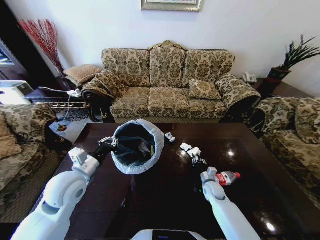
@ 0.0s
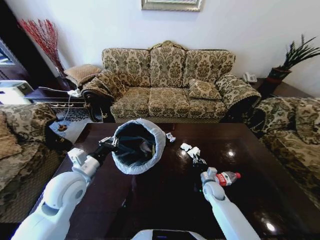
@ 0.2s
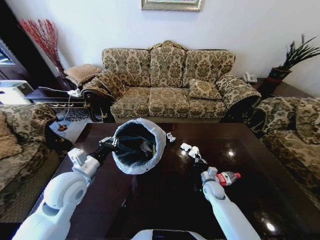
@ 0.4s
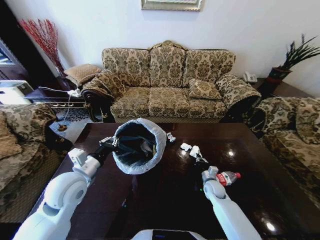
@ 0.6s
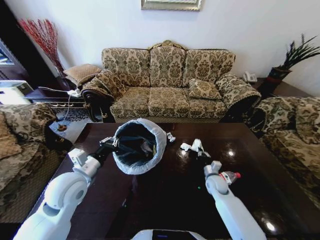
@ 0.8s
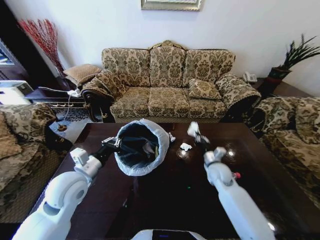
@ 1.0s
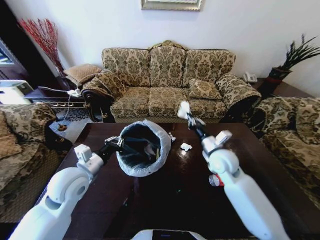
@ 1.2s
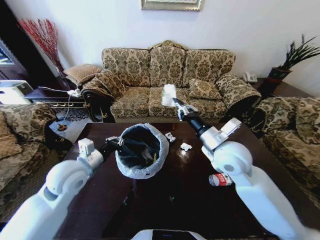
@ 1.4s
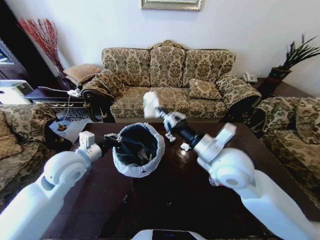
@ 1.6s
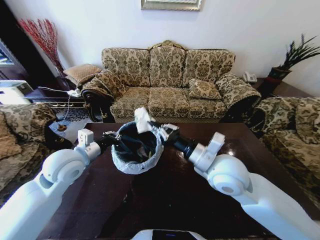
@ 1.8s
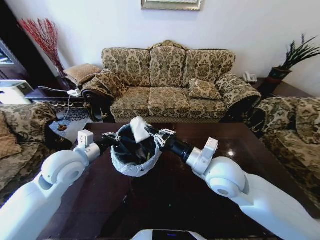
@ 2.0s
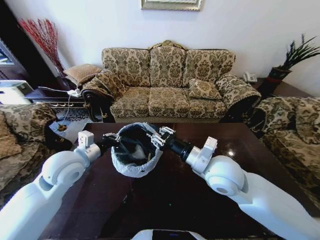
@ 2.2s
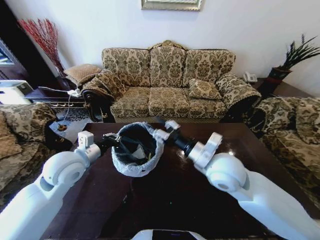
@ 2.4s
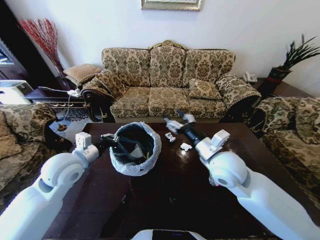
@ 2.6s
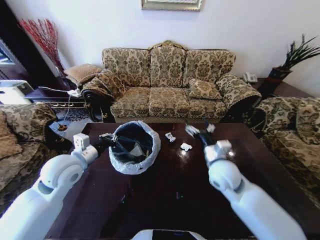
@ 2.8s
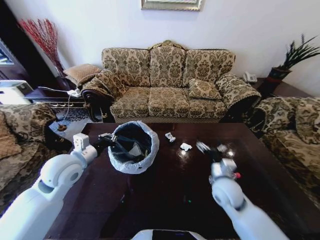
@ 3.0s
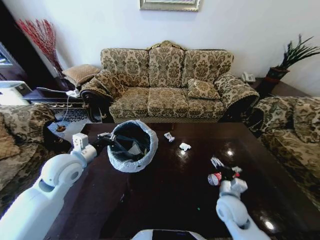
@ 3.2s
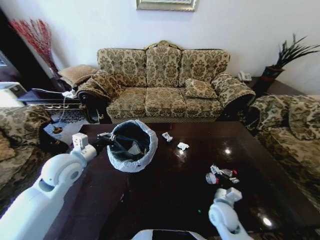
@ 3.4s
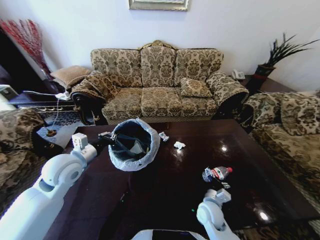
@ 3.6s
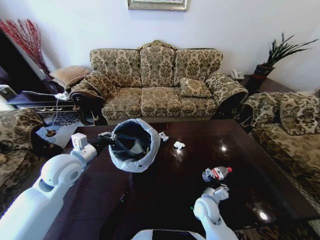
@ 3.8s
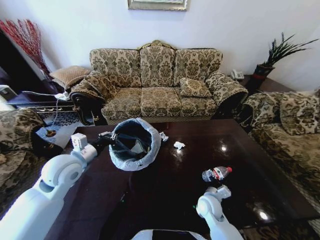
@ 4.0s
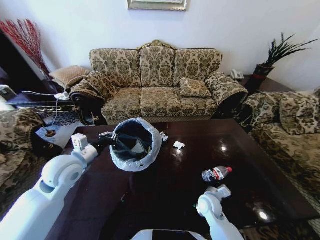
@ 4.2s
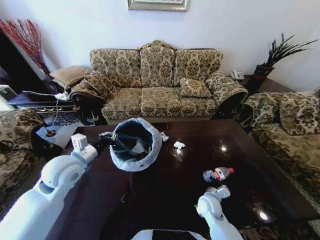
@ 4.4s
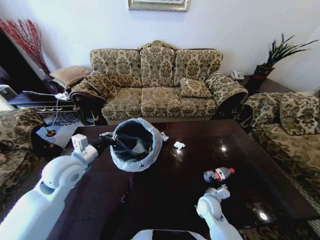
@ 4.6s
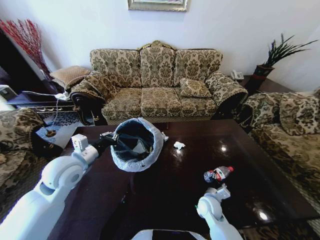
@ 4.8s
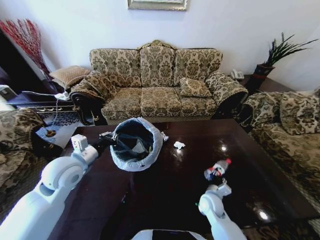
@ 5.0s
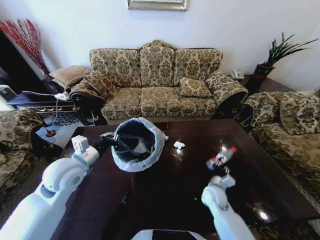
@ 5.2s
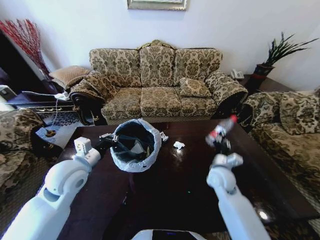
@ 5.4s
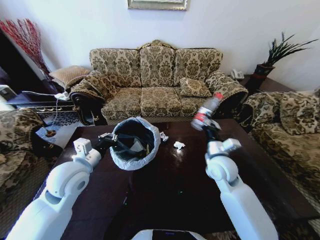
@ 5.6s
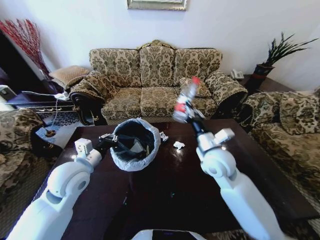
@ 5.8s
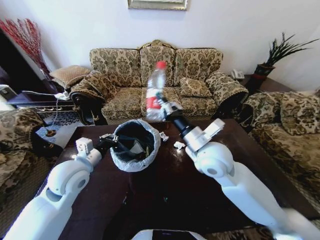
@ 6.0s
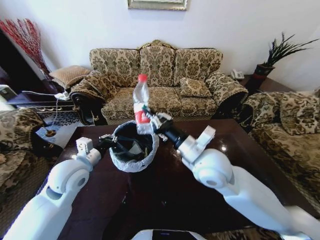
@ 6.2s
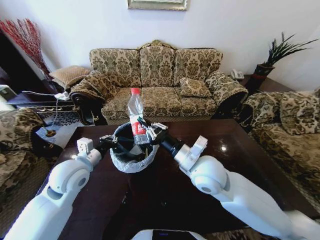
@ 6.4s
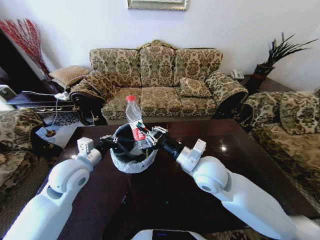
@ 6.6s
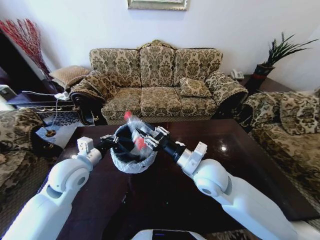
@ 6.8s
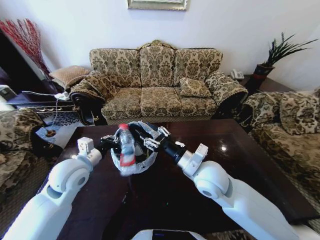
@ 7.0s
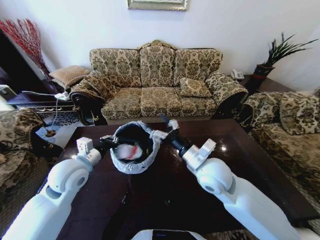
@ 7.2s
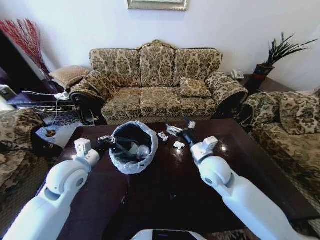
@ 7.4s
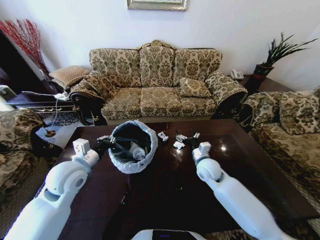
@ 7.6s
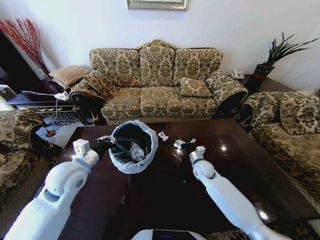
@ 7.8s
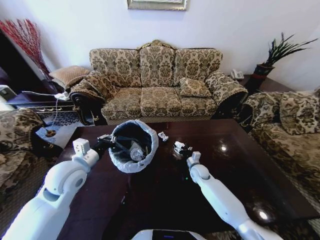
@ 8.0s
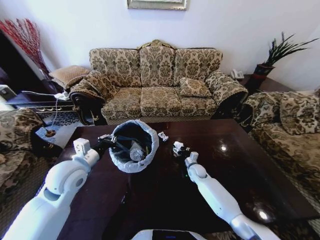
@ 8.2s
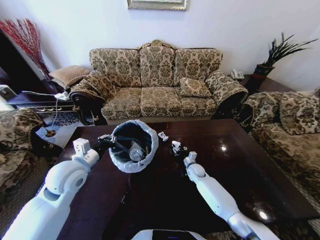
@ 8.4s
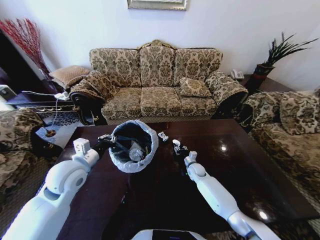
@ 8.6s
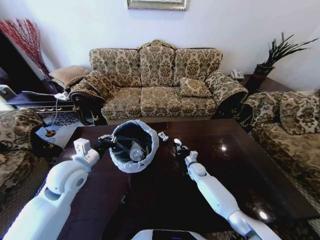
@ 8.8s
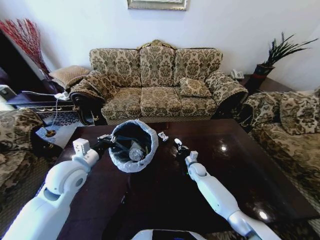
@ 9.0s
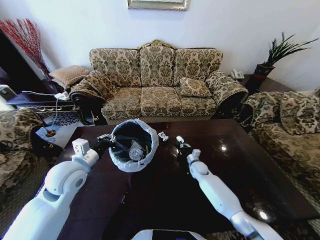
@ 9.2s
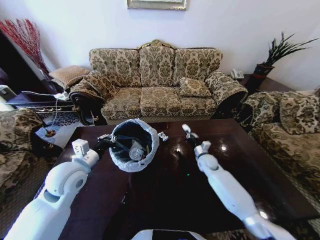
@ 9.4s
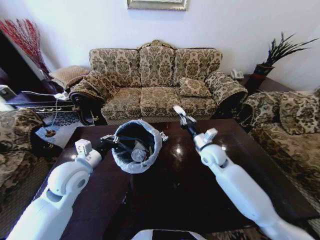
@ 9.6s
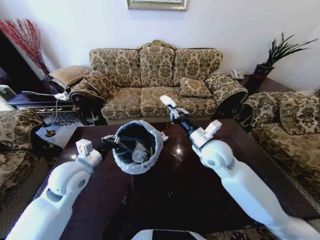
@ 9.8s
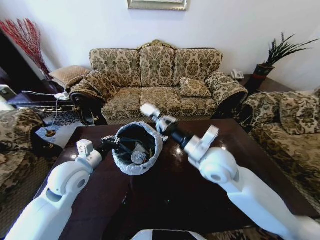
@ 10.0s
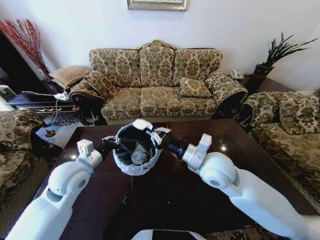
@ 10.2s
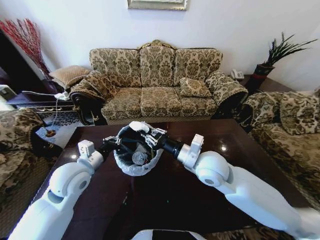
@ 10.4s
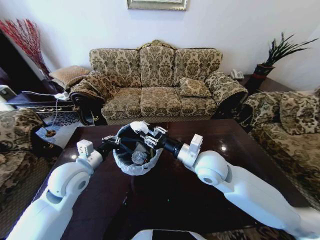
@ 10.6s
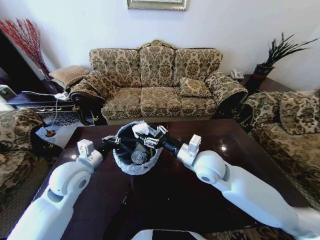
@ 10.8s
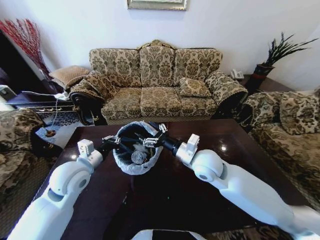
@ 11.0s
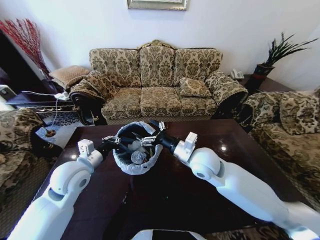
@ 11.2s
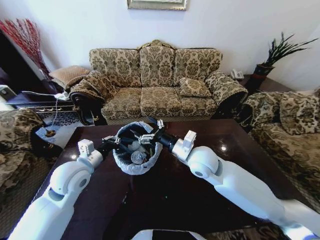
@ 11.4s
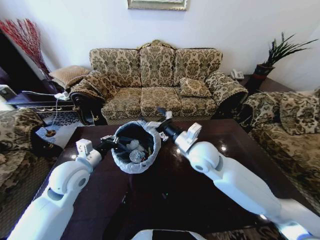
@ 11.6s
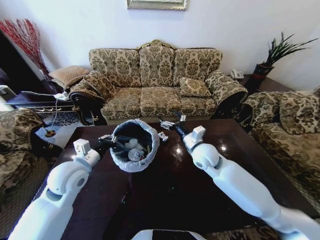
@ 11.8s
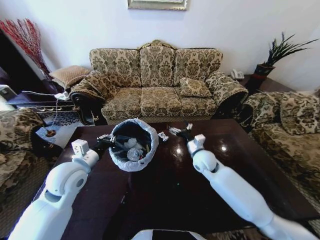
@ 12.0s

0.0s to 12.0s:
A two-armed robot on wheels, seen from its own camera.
Task of the whole recording: Move to the front of the table and place the trash on the table into the trash bin.
0.0s to 1.6s: The right gripper heads upward, covering roughly 35 cm, and closes its fingers, while the left gripper shifts by some 5 cm.
1.6s to 3.0s: The right gripper goes roughly 20 cm downward, and opens.
3.0s to 4.4s: The right gripper travels downward by about 15 cm.
4.4s to 6.0s: The right gripper heads upward, covering some 30 cm, and closes.
6.0s to 7.6s: The right gripper goes approximately 15 cm downward, and opens.
7.6s to 9.0s: The right gripper is displaced downward and forward by about 20 cm, and closes up.
9.0s to 10.4s: The right gripper moves upward and backward, roughly 35 cm.
10.4s to 12.0s: The right gripper goes about 15 cm downward and forward, and opens its fingers.

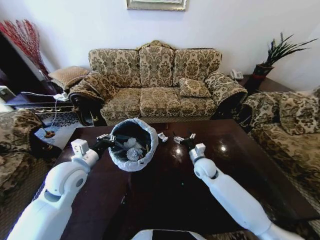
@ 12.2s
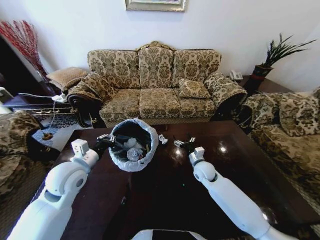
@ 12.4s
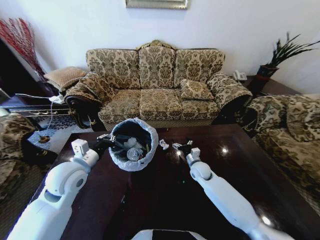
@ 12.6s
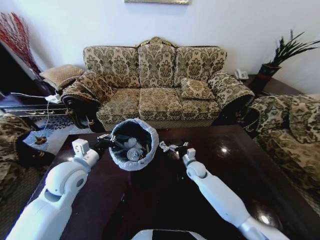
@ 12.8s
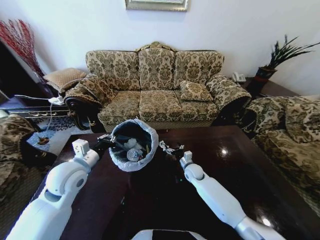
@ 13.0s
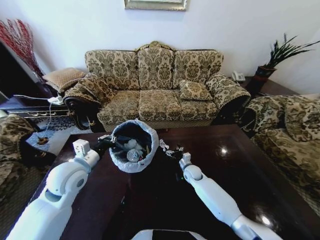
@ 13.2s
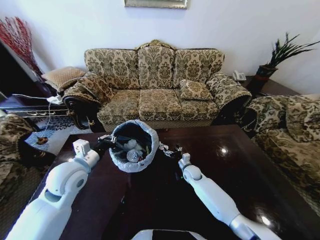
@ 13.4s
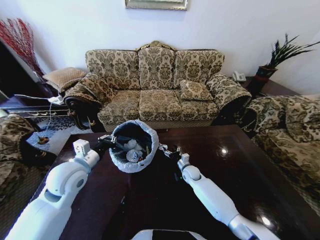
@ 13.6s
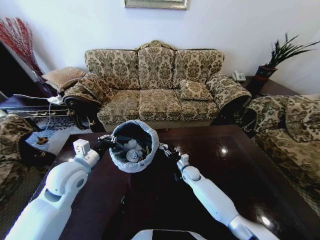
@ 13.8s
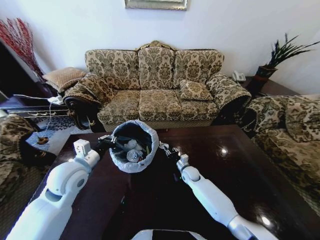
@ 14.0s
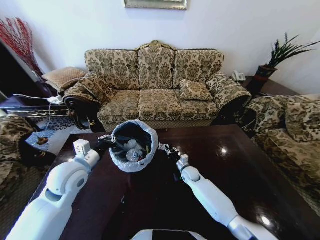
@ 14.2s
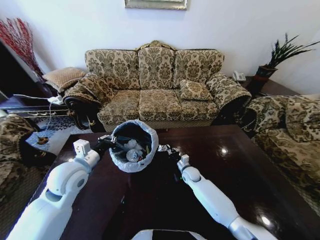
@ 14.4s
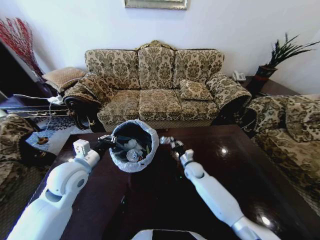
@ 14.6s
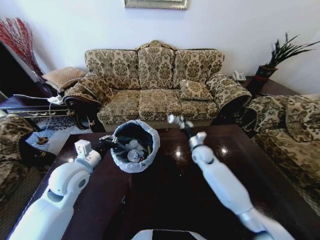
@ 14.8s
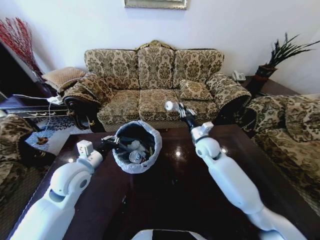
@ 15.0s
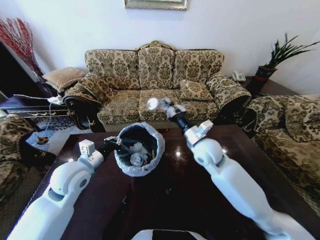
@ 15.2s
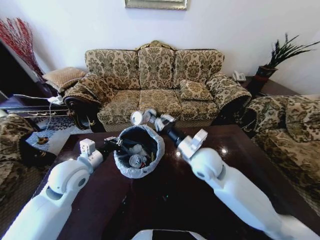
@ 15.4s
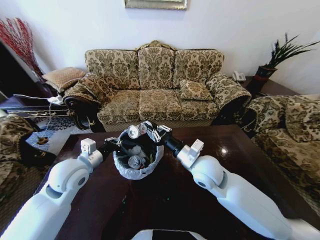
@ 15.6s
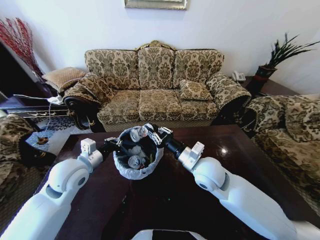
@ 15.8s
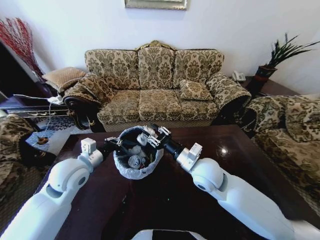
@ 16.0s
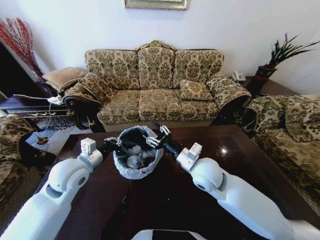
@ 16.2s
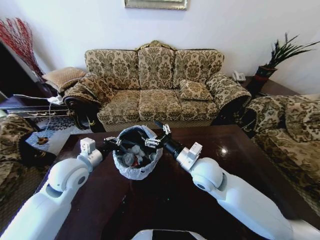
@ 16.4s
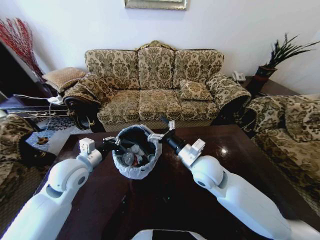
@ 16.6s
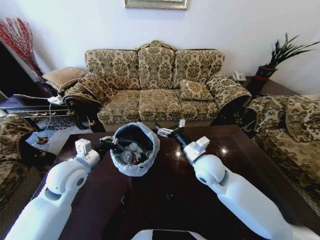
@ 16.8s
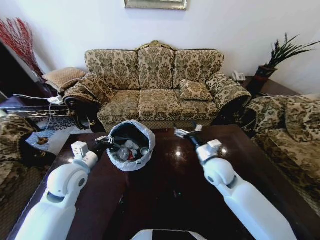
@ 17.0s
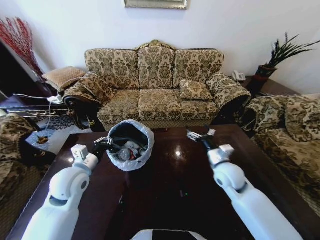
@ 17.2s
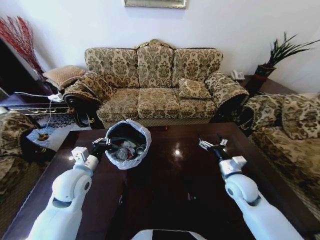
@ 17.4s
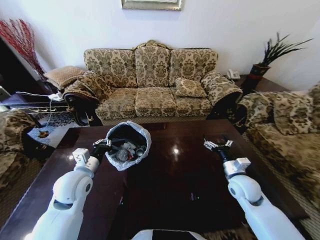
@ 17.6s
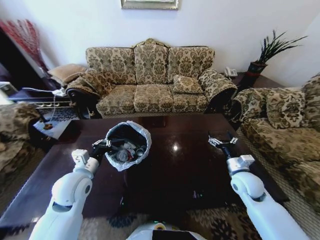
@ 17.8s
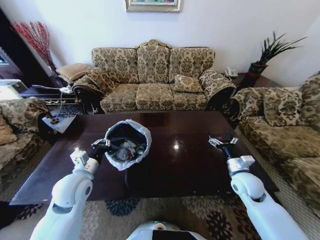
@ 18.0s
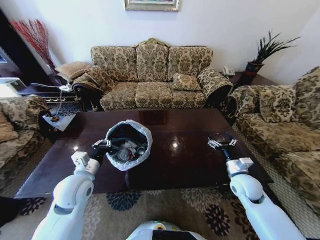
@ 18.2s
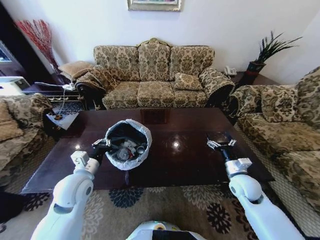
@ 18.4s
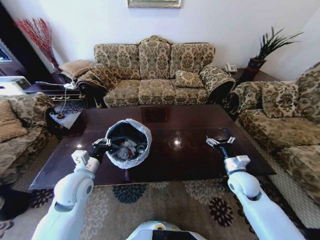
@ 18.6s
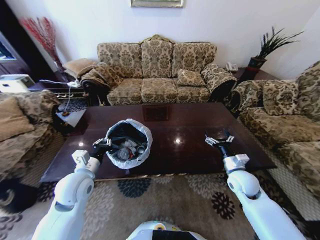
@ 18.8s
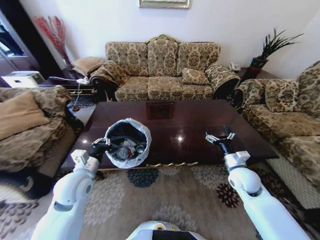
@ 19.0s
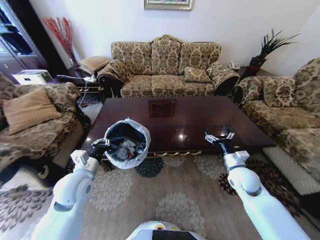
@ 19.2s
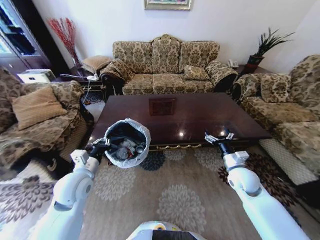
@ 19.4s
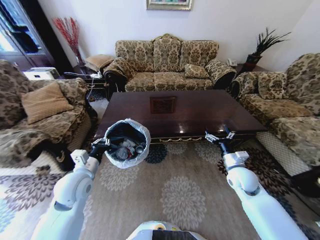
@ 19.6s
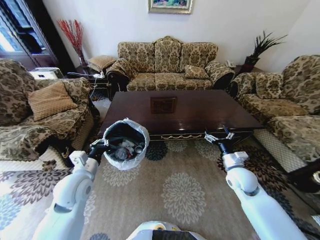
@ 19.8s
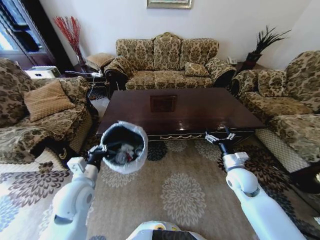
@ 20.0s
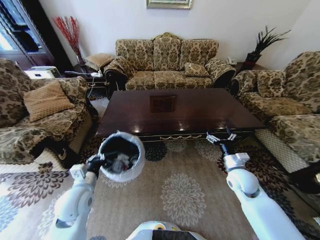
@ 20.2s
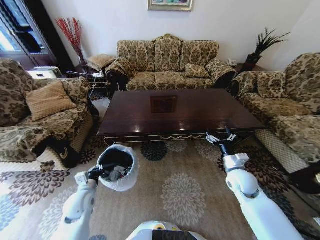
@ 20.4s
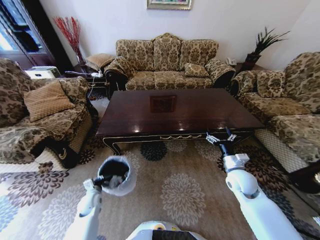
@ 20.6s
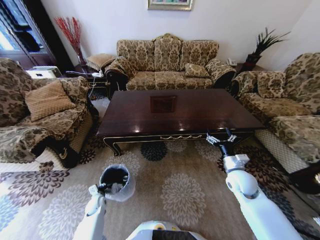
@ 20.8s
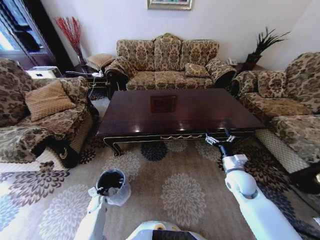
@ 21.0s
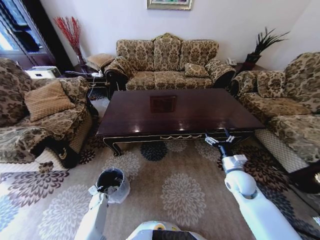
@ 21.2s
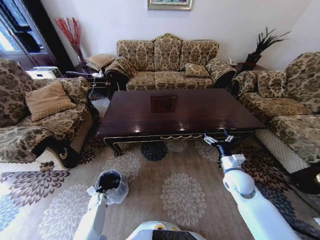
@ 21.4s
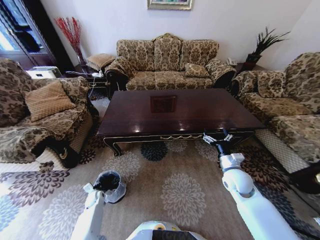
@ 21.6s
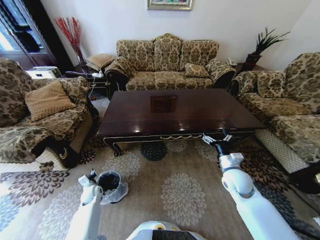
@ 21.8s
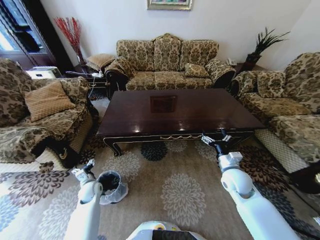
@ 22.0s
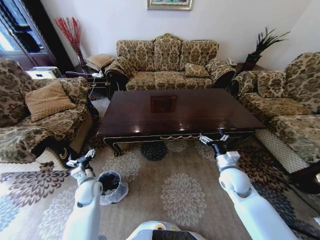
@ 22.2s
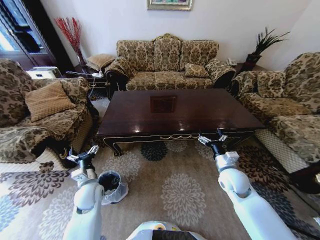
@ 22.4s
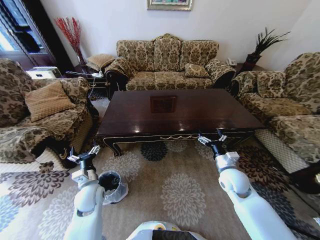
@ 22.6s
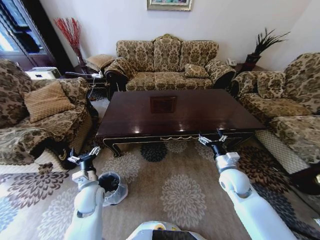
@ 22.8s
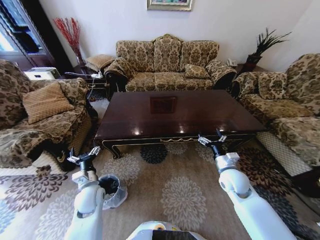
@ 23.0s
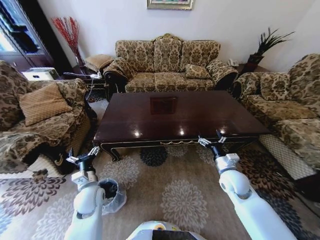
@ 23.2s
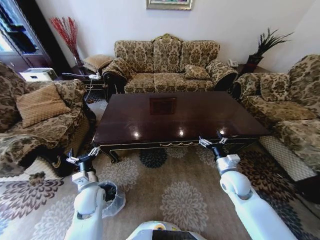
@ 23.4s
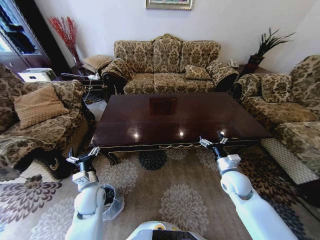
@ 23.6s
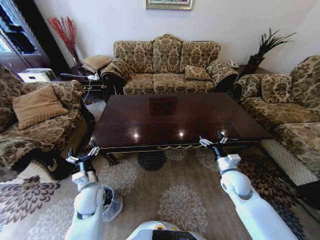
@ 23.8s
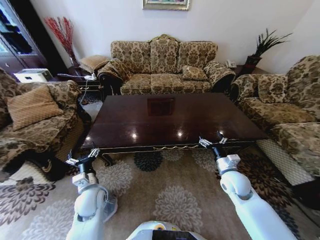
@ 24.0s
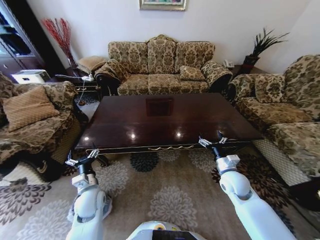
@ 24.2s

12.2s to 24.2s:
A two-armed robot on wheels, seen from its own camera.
Task of the whole recording: Move to the front of the table and place the trash on the table into the trash bin.
12.2s to 13.8s: The right gripper heads downward, covering about 15 cm.
13.8s to 15.2s: The right gripper goes roughly 30 cm upward, and closes up.
15.2s to 16.6s: The right gripper moves backward, some 5 cm, and opens.
16.6s to 18.2s: The left gripper moves some 5 cm; the right gripper travels to the right and downward by roughly 25 cm.
19.8s to 21.2s: The left gripper travels downward by some 40 cm.
21.2s to 22.6s: The left gripper shifts approximately 30 cm upward, and opens up.
